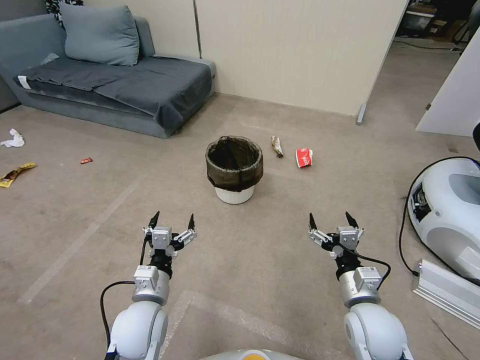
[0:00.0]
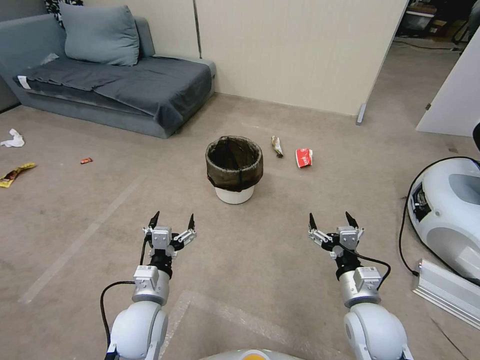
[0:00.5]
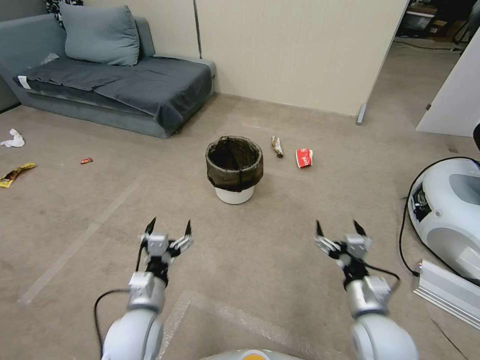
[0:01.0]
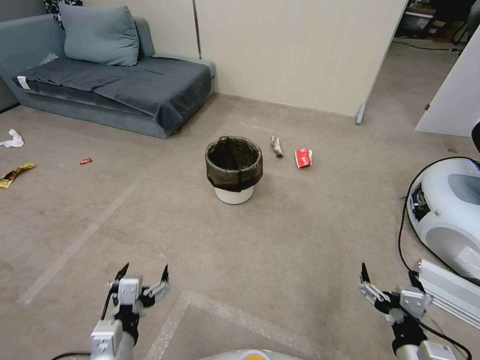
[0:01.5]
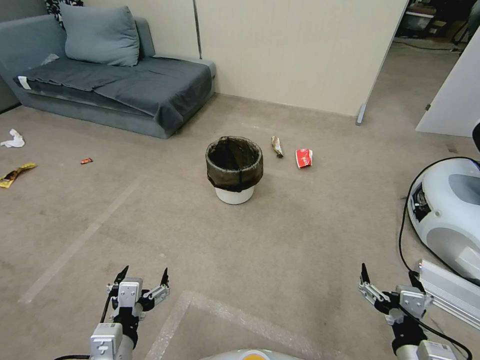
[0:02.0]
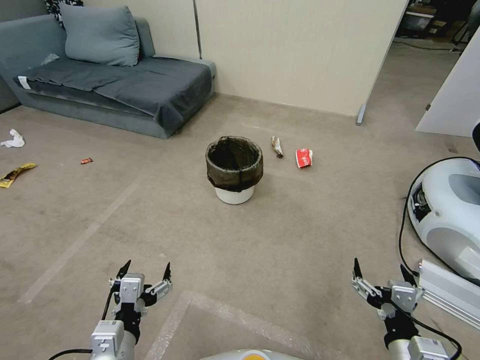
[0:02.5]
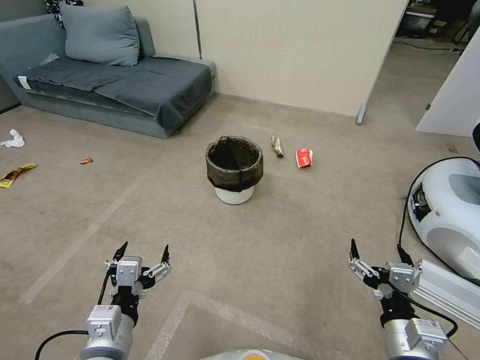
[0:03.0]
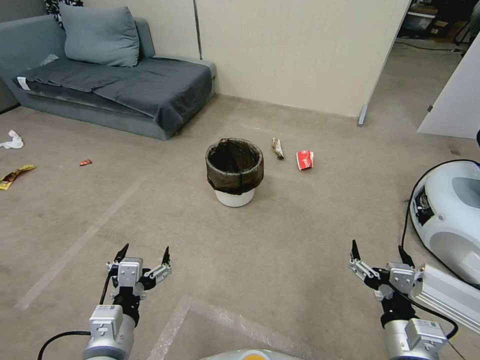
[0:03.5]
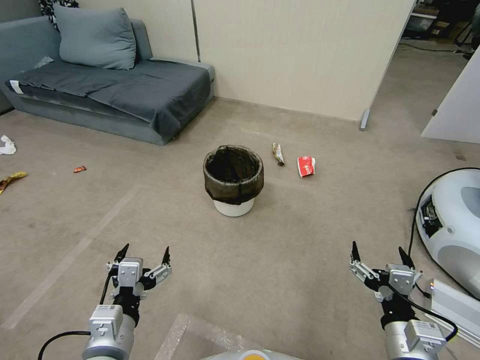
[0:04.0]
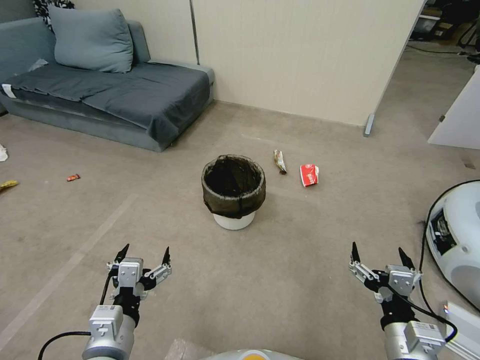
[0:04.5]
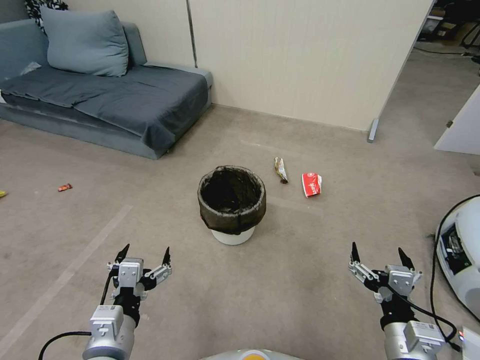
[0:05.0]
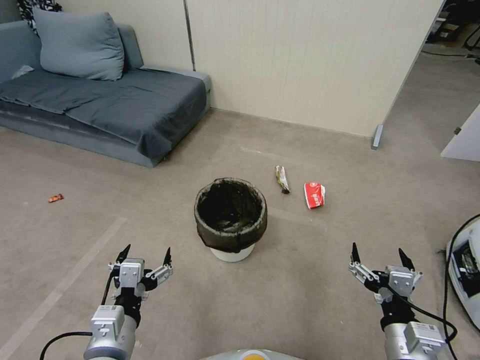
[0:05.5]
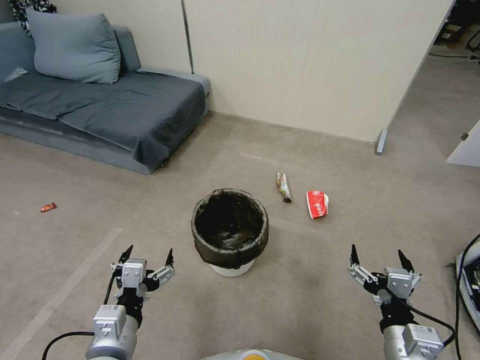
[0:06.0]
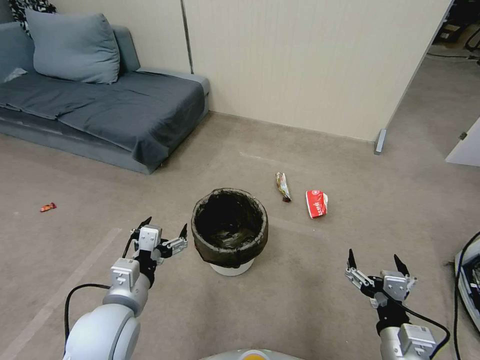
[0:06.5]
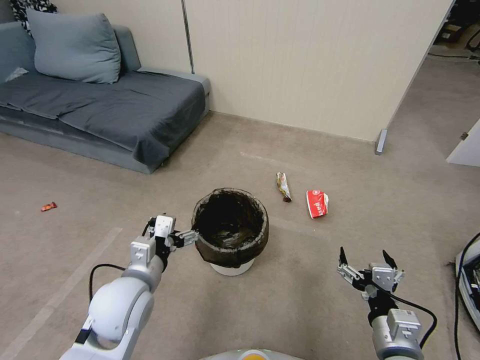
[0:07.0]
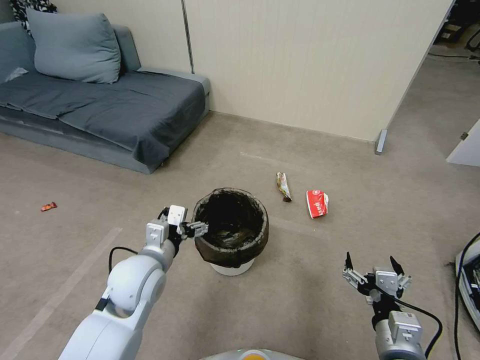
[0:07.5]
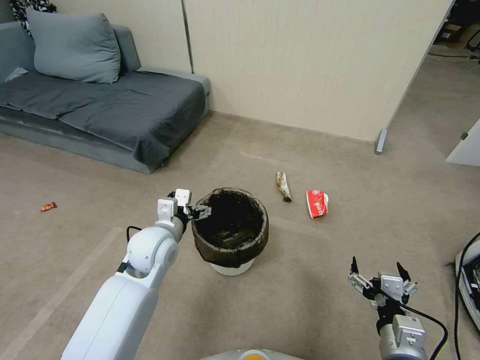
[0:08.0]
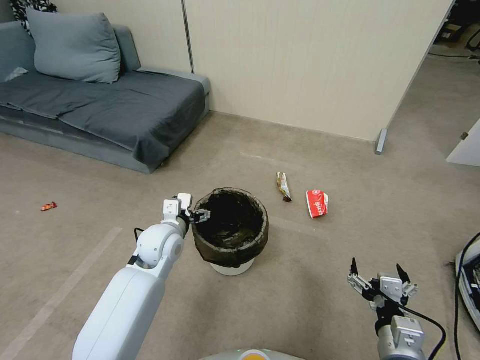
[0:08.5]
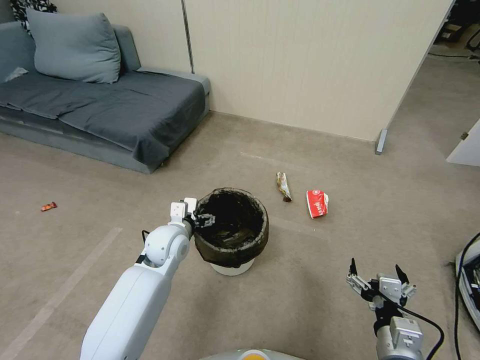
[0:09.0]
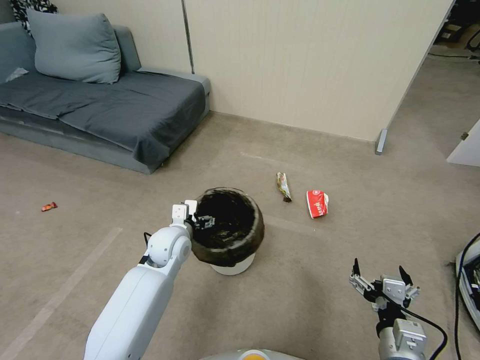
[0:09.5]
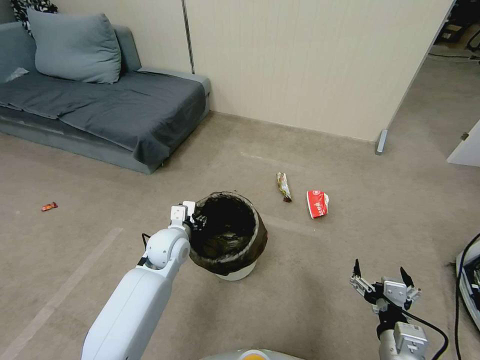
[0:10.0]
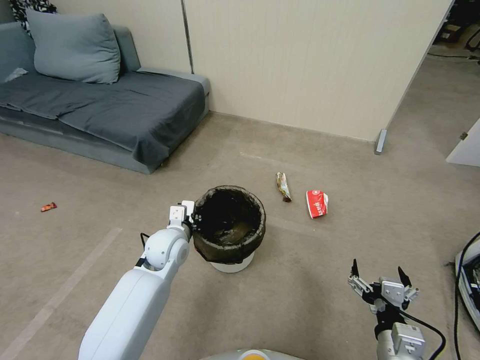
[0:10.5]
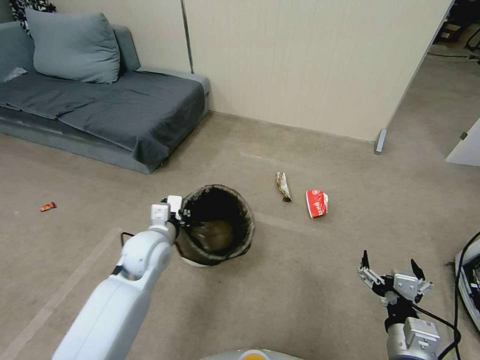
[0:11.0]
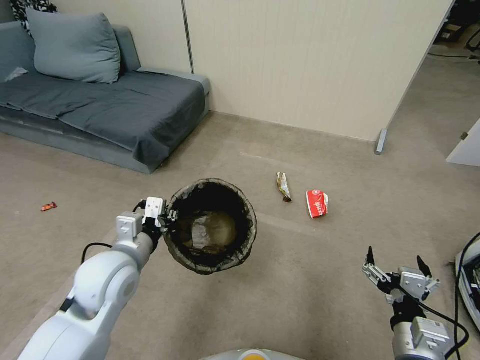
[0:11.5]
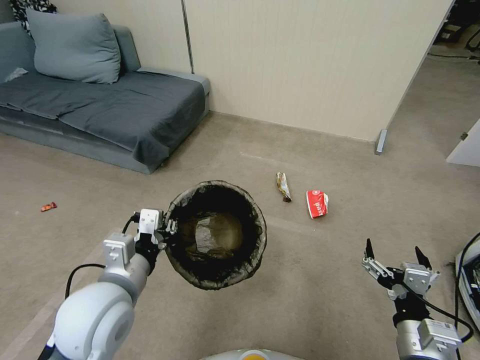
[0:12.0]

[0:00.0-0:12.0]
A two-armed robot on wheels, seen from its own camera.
Task of the whole recording: Pick up the trash bin, then pick up the garbage from the floor and place it into the trash bin.
2.0 to 4.0 s: There are only small adjustments of the grippers.
6.0 to 8.0 s: The left gripper heads forward, covering approximately 20 cm.
8.0 to 10.0 s: The left gripper heads downward, covering approximately 5 cm, and closes.
10.0 to 12.0 s: The left gripper goes roughly 20 cm backward and upward, and closes its fingers.

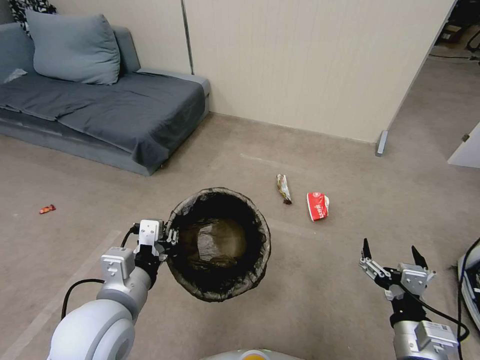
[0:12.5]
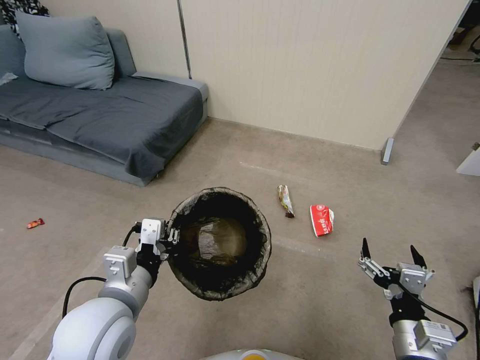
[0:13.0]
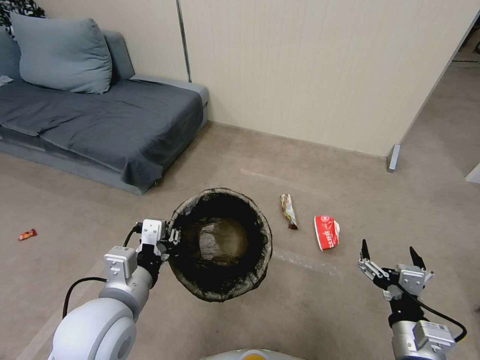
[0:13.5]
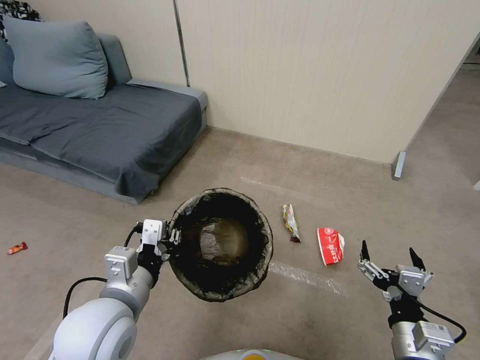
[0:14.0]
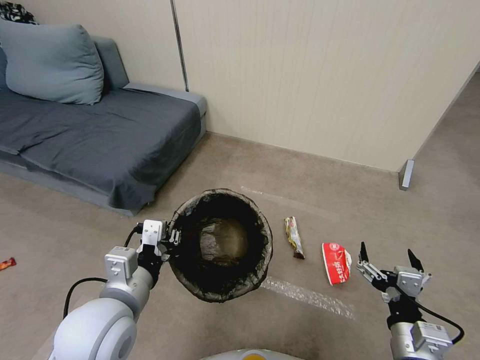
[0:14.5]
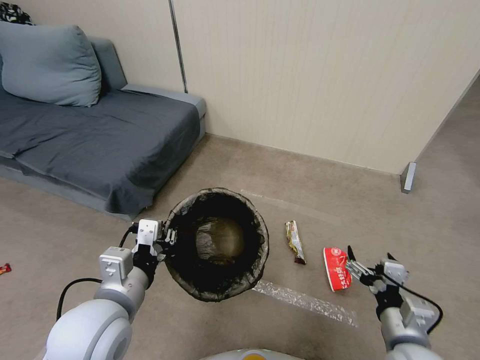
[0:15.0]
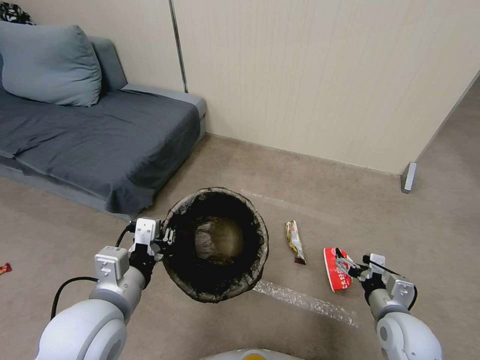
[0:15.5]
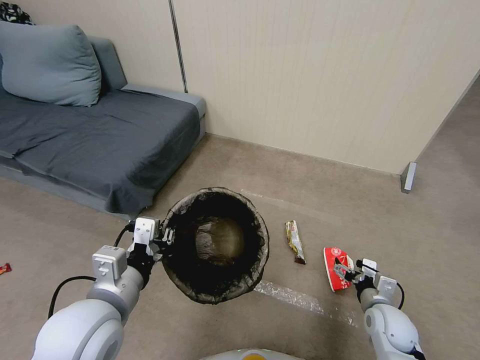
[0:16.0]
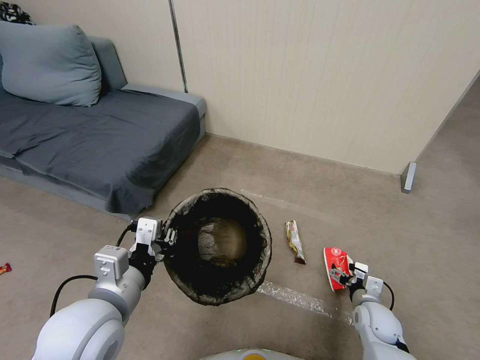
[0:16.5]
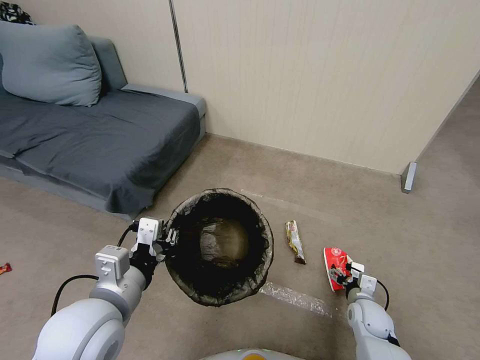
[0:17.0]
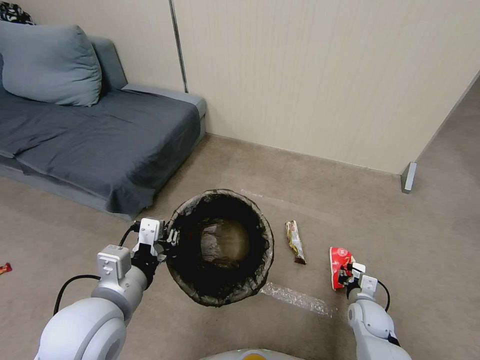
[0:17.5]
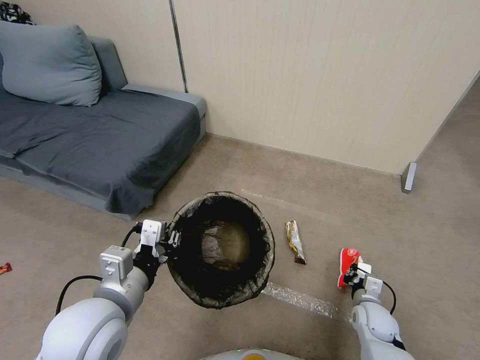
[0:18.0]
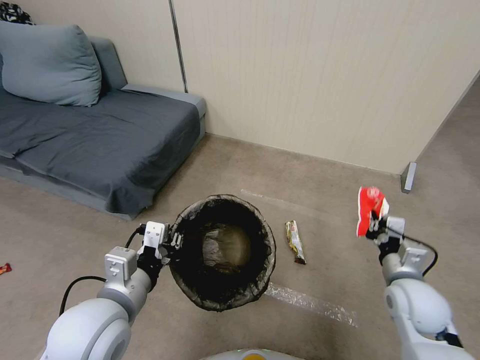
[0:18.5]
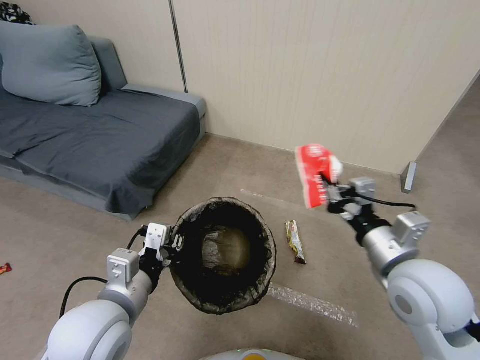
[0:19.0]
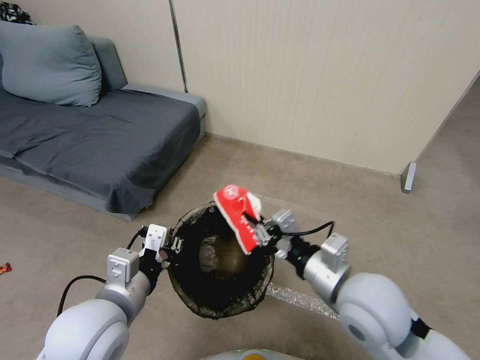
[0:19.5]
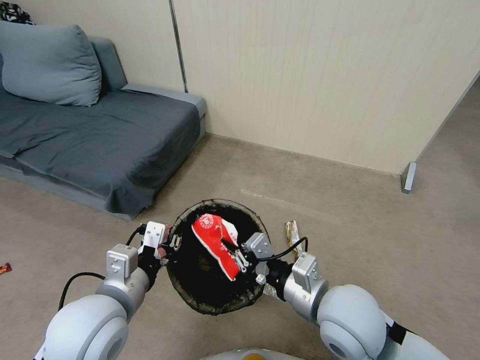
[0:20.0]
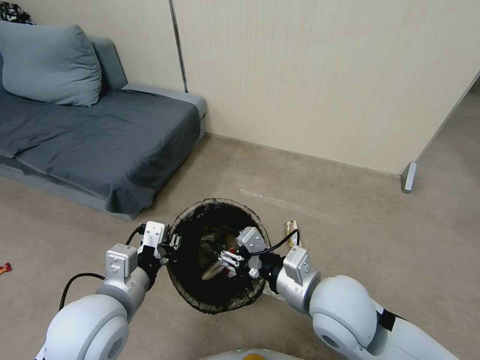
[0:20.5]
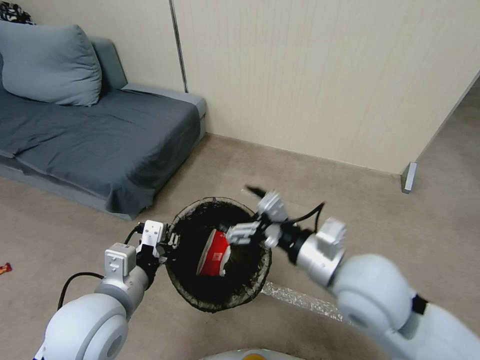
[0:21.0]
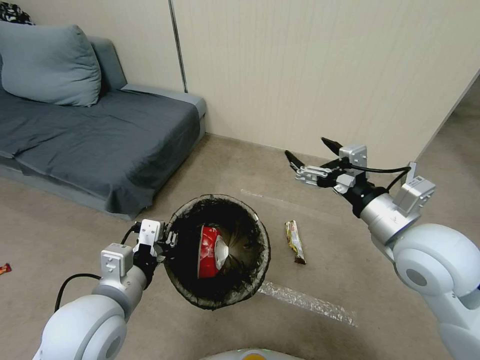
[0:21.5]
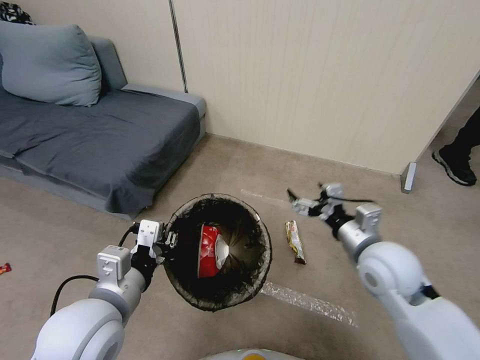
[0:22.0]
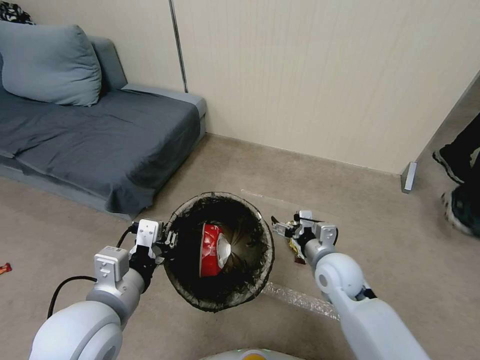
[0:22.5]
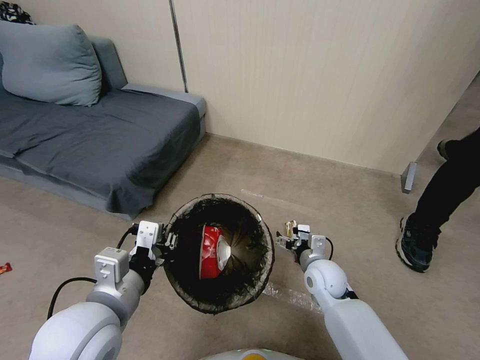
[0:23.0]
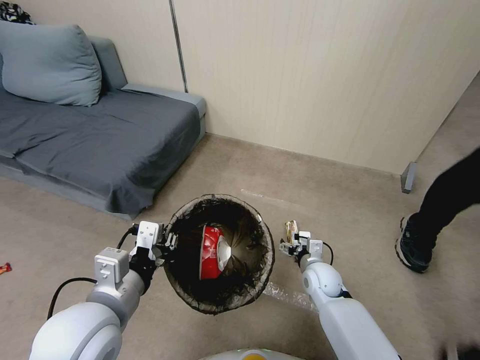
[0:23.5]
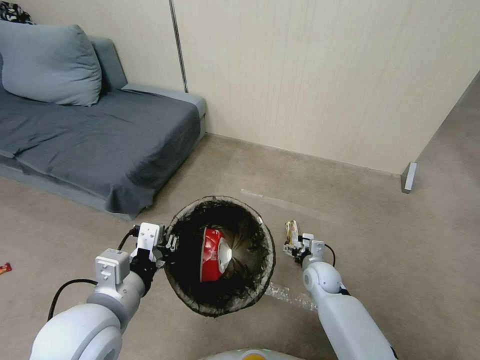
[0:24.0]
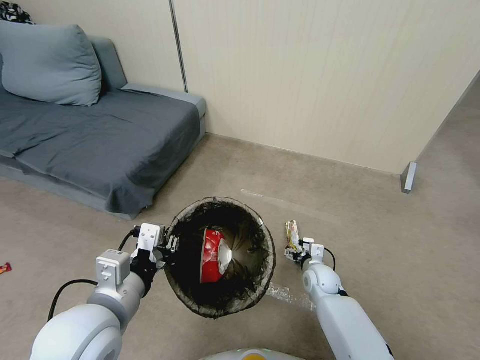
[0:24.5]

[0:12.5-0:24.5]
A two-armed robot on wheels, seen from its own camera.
Task of the whole recording: Pick up the trash bin, then pick up the garbage from the floor and place it into the trash bin.
14.5 to 16.5 s: The right gripper travels downward and forward by about 20 cm.
16.5 to 18.5 s: The right gripper shifts approximately 15 cm upward, and closes its fingers.
18.5 to 20.5 s: The right gripper moves to the left and upward, approximately 20 cm, and opens.
20.5 to 22.5 s: The right gripper heads downward, forward and to the right, covering approximately 15 cm, and opens.
22.5 to 24.5 s: The right gripper heads downward, covering approximately 15 cm.

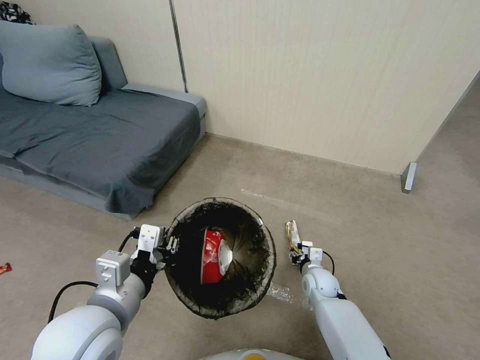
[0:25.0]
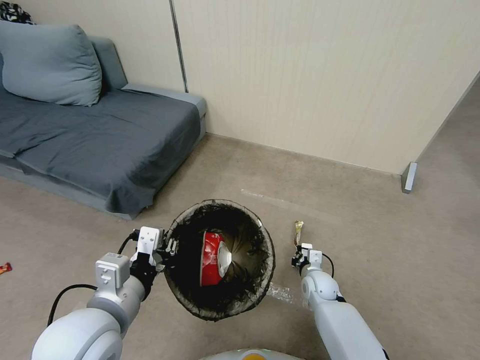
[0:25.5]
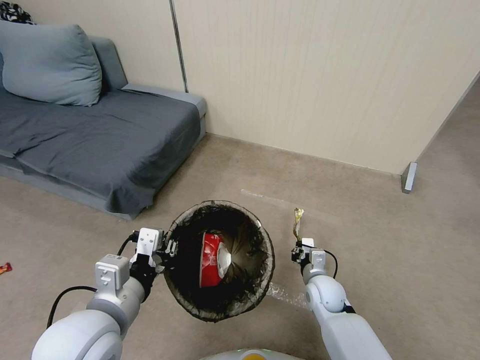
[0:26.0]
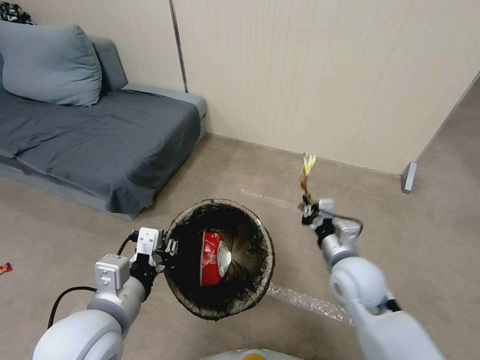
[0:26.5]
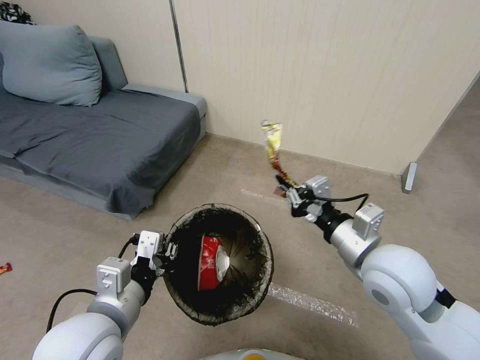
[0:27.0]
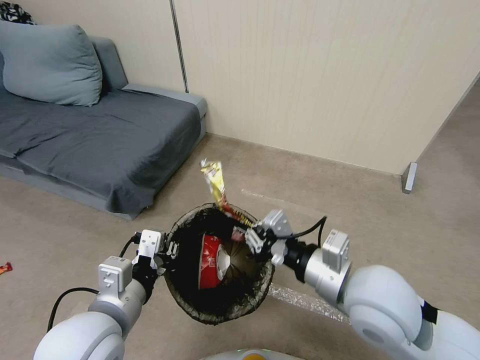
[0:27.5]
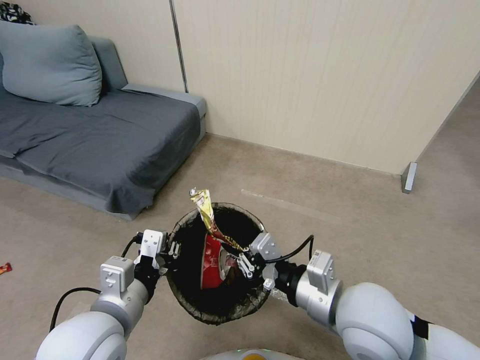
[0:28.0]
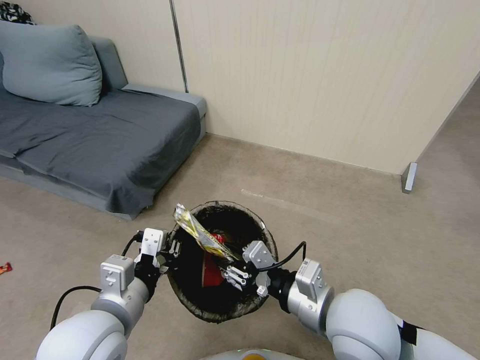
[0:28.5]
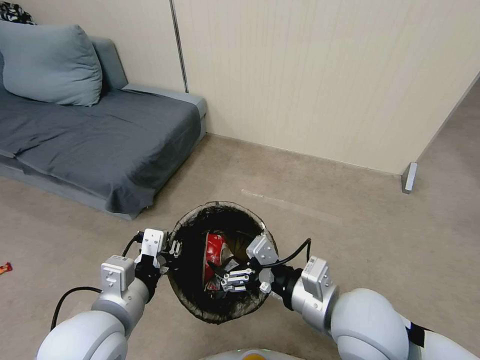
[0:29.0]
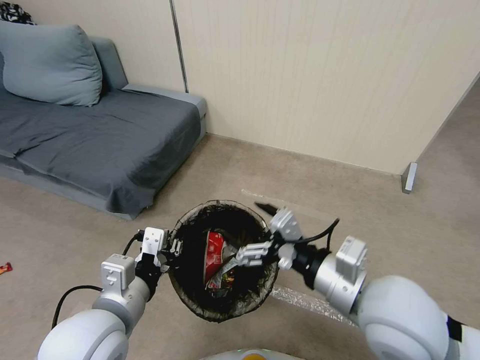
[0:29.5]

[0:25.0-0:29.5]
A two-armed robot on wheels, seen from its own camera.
Task of the whole recording: Pick up the trash bin, then pick up the garbage from the floor and place it into the trash bin.
25.0 to 27.0 s: The right gripper is displaced upward by approximately 35 cm, and closes.
27.0 to 29.5 s: The right gripper moves backward, roughly 5 cm, and opens up.
